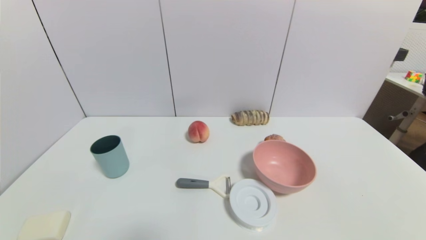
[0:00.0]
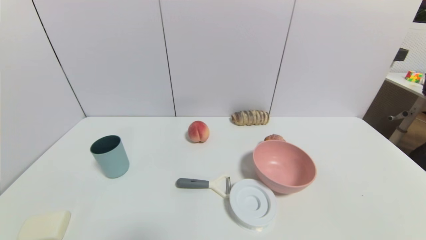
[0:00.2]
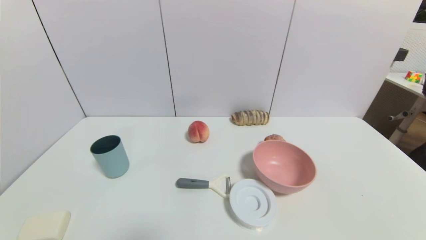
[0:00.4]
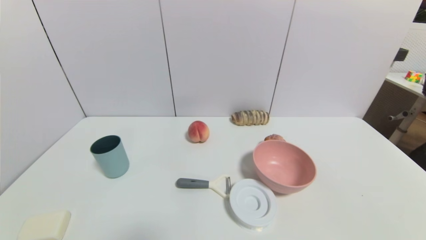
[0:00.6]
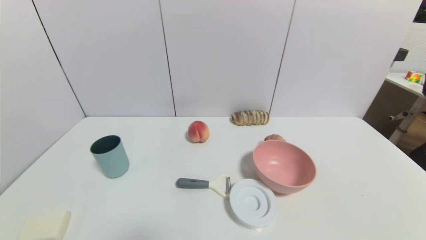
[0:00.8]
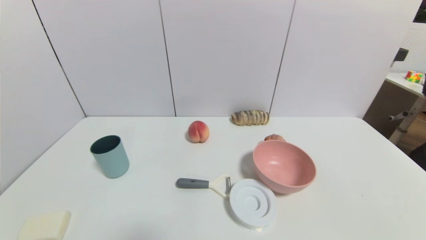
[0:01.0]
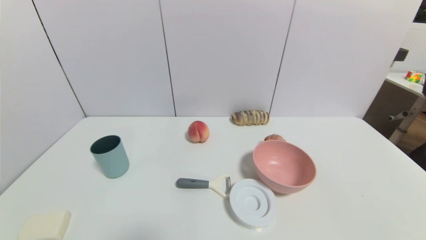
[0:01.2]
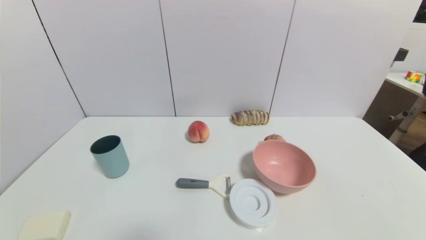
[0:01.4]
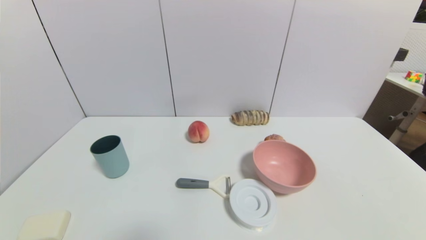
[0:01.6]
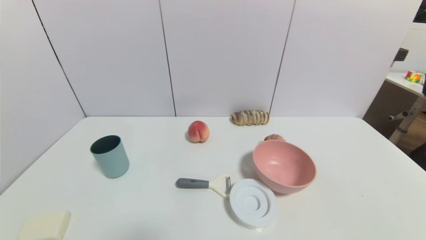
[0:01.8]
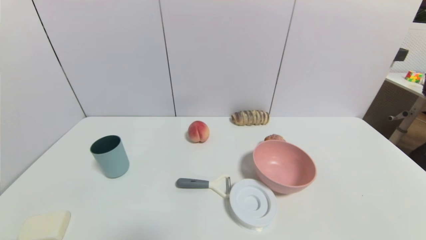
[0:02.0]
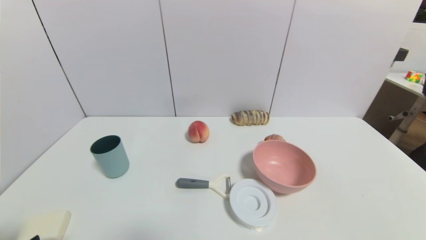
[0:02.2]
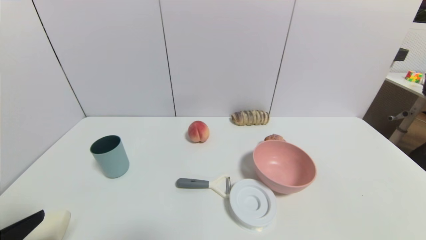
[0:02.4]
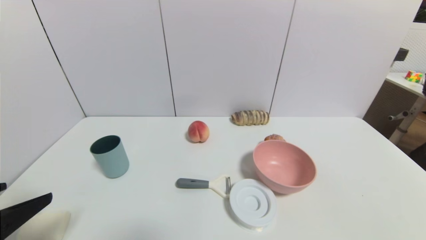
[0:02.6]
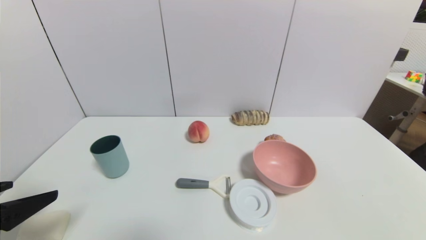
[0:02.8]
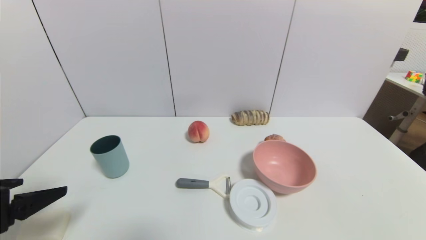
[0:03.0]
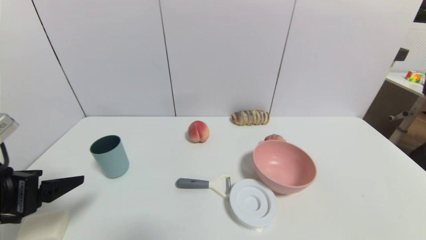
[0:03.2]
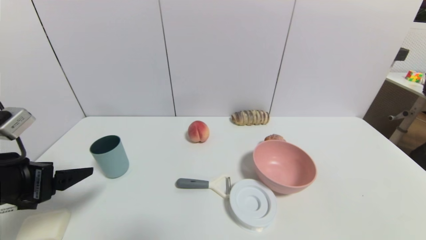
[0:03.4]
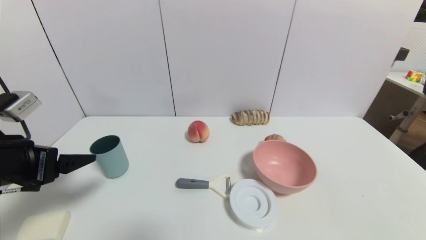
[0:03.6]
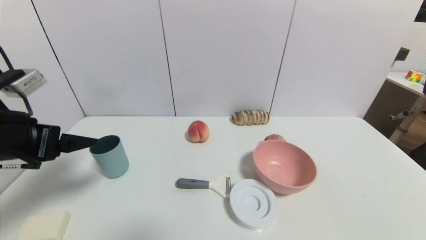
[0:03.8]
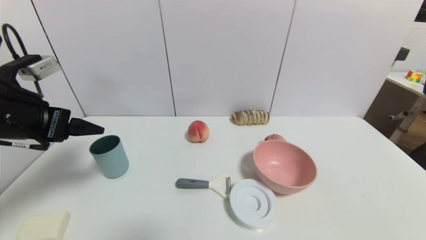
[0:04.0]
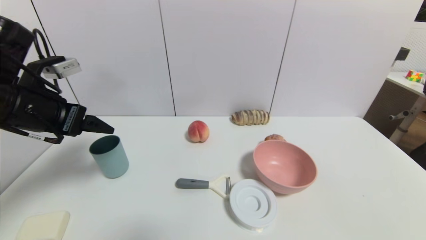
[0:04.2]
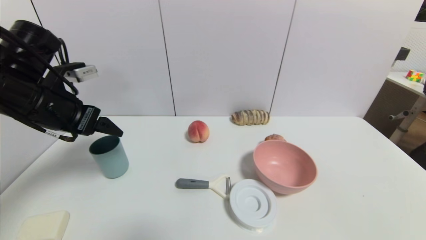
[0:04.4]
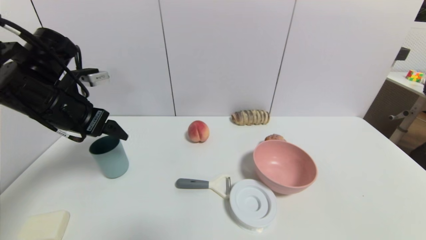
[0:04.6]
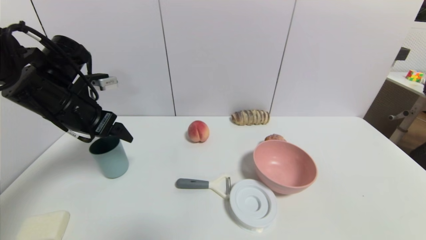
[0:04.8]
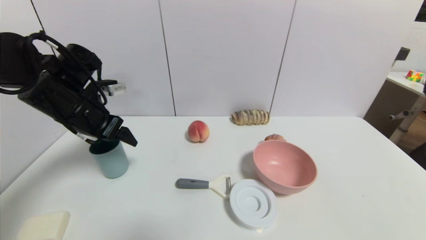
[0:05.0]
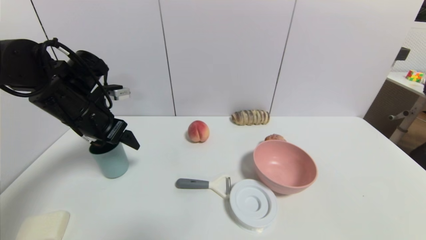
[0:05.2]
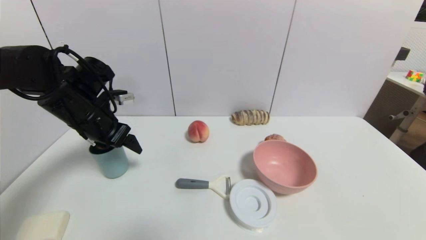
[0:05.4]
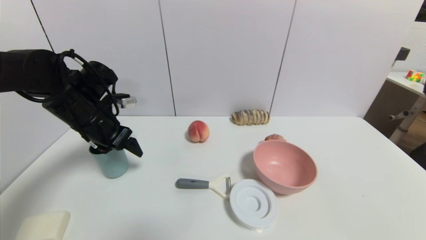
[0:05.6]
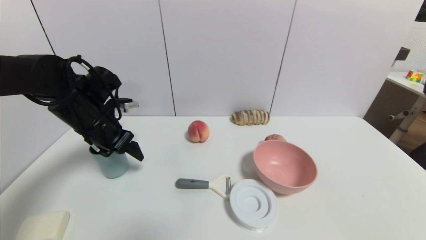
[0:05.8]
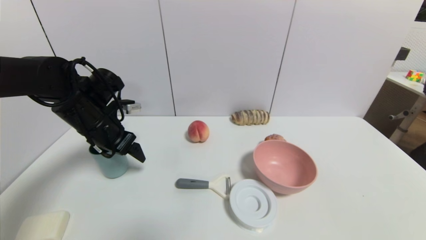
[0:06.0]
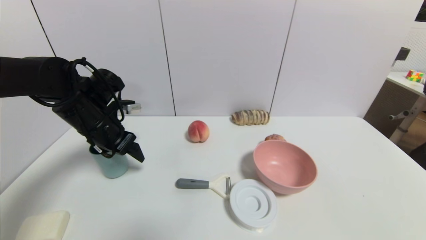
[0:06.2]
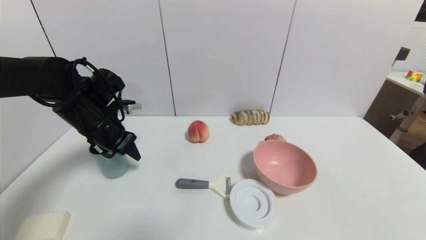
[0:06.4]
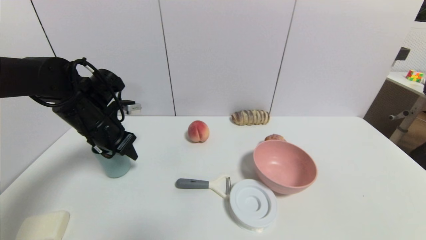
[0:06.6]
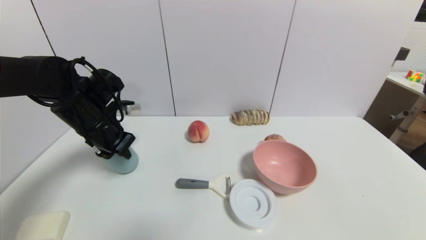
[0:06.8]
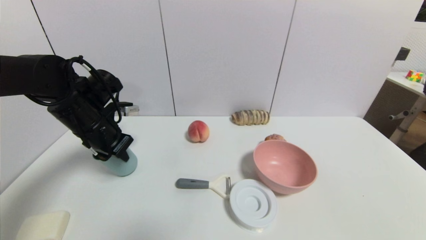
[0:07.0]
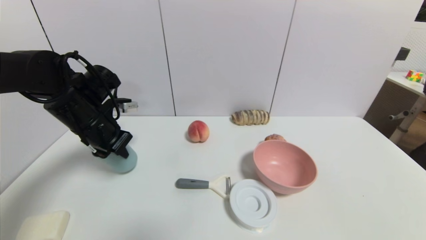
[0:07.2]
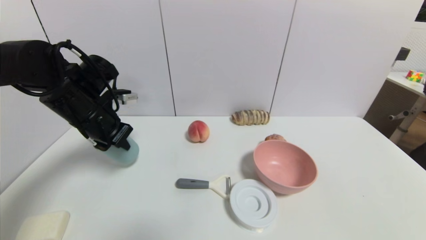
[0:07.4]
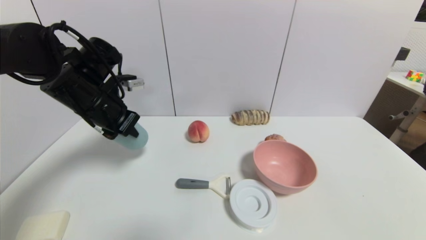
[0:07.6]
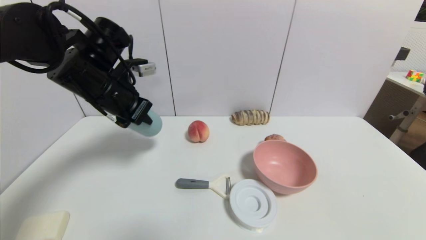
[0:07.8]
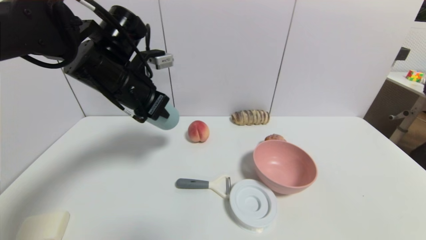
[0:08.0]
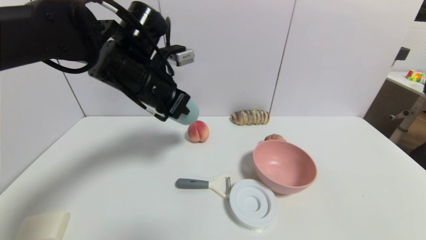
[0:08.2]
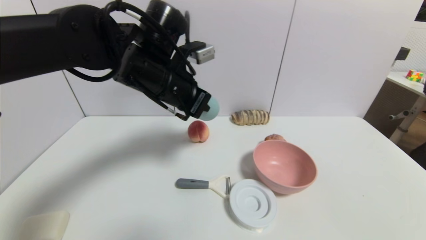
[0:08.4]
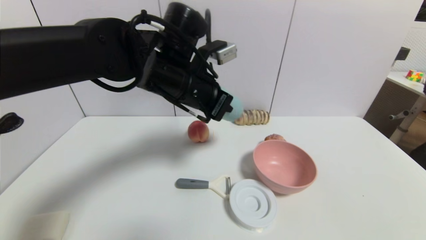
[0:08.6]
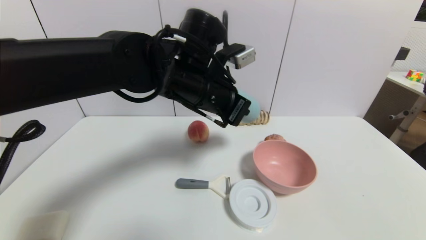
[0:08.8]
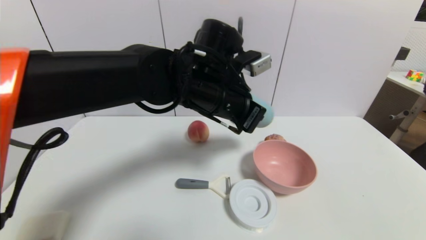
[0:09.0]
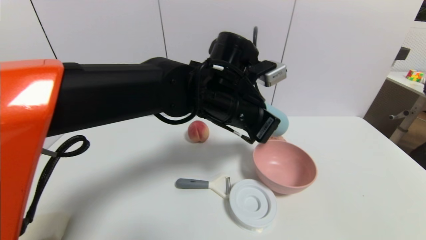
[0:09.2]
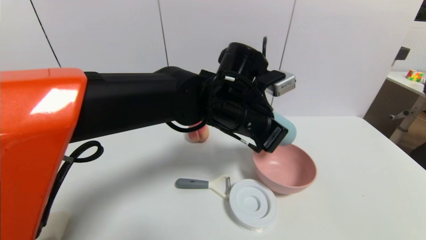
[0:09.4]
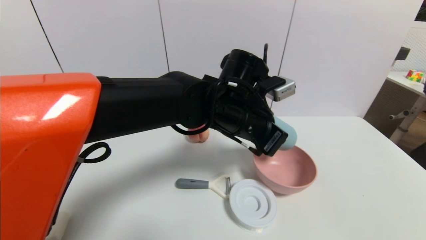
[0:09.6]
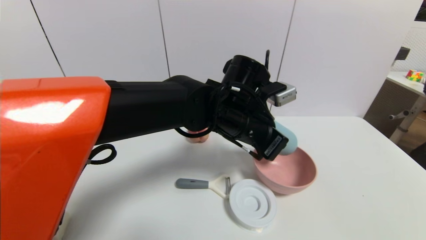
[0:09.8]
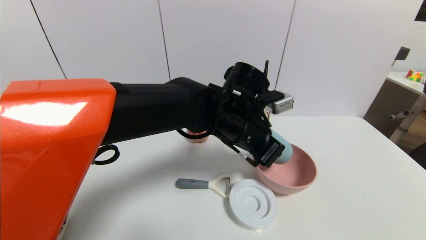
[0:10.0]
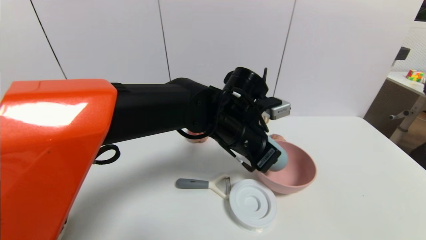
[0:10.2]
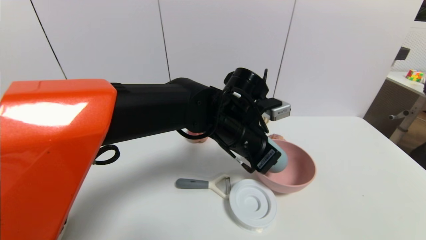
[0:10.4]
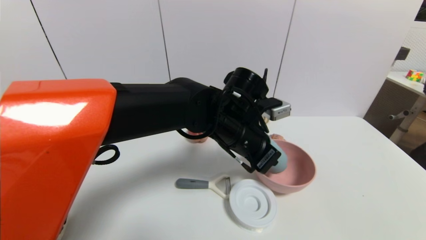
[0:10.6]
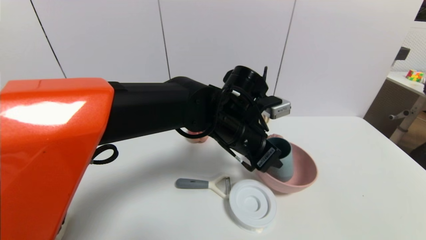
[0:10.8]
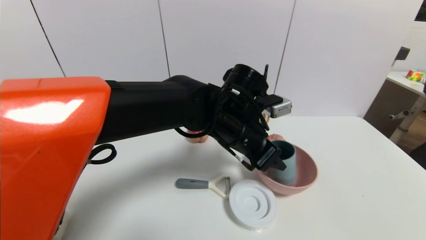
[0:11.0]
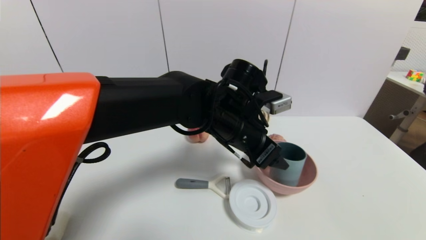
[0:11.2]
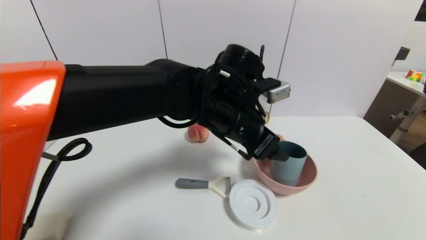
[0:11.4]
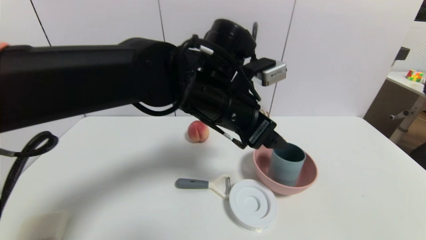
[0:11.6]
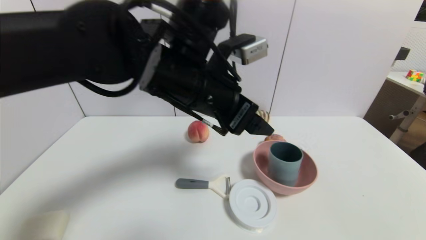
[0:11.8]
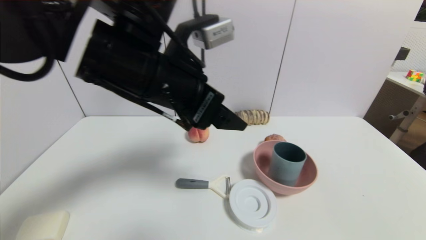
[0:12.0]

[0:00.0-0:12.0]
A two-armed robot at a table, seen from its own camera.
Task of the whole recording: use a gripper to pick the target object and place on the pink bowl.
Step, 0:00.0 to 0:06.8: Grasp the blue cup with the left gripper.
Step, 0:07.0 to 0:11.0: Place the blue cup on the pink bowl with the left gripper.
0:00.0 to 0:01.6: Neither gripper changes place.
0:01.6 to 0:03.0: The left gripper shifts roughly 20 cm upward and forward.
0:03.0 to 0:04.4: The left gripper is displaced forward by approximately 15 cm.
0:04.4 to 0:06.0: The left gripper goes some 10 cm downward and forward.
0:06.0 to 0:07.6: The left gripper heads upward, covering roughly 5 cm, and closes up.
0:07.6 to 0:09.0: The left gripper travels to the right by roughly 20 cm.
0:09.0 to 0:10.4: The left gripper moves downward, about 5 cm.
0:10.4 to 0:12.0: The left gripper heads to the left, upward and backward, covering approximately 20 cm, and opens up.

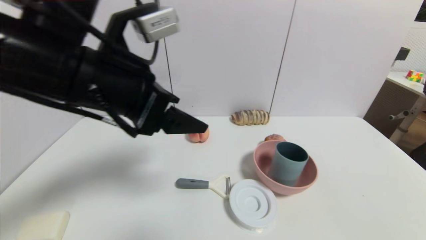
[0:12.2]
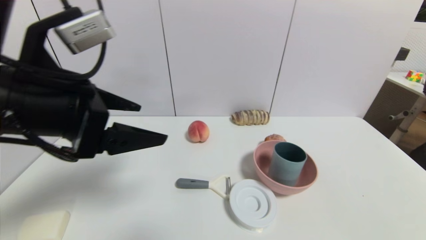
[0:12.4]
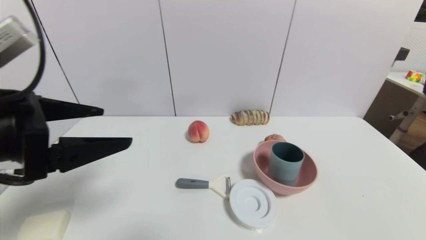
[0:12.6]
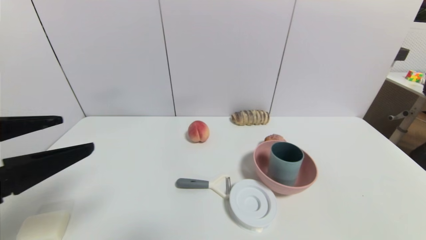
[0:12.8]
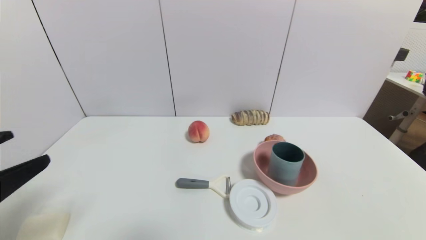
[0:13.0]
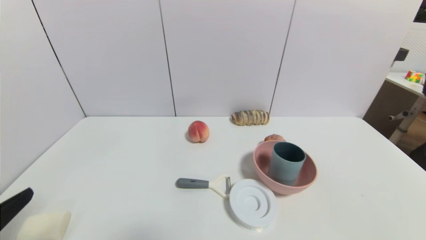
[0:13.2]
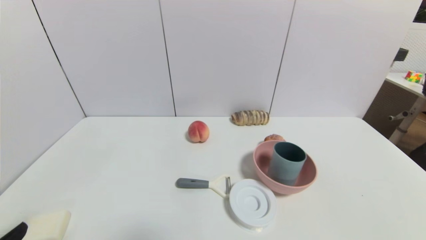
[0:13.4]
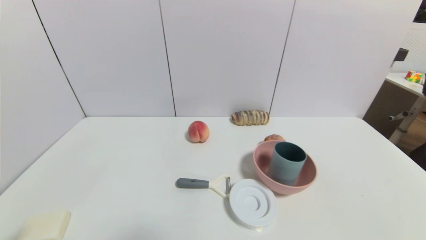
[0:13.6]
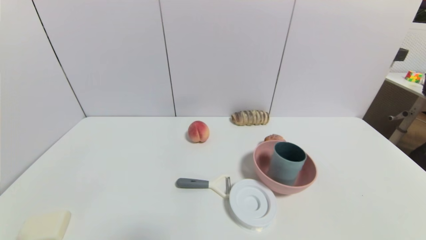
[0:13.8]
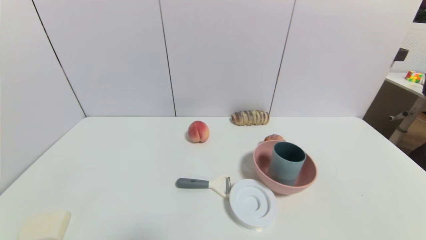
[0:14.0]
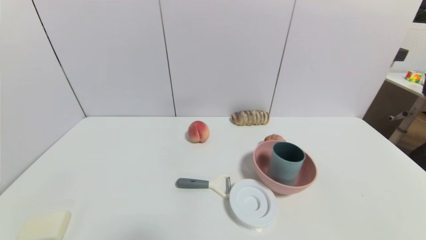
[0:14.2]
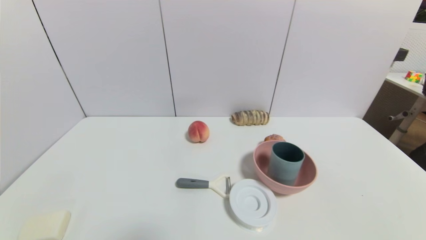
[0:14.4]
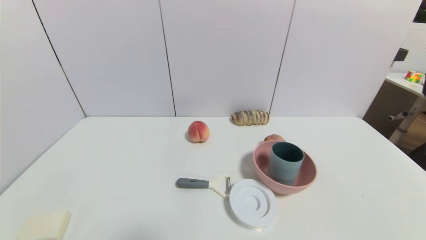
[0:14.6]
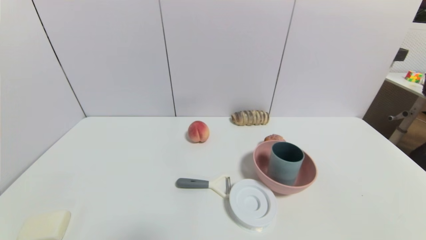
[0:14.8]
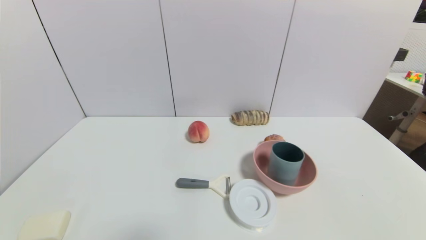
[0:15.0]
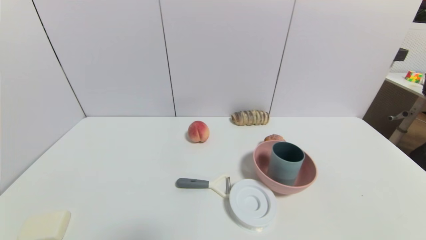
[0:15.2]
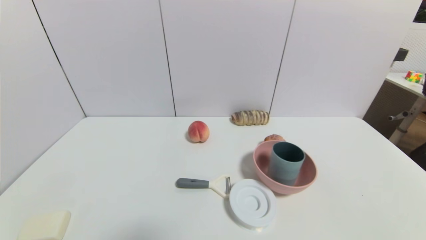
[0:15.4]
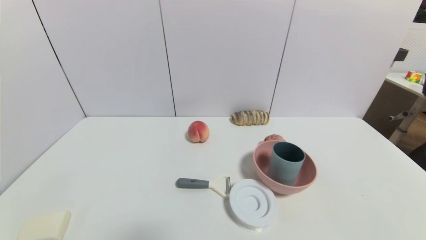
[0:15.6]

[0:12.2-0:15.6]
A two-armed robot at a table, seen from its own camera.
Task of the whole recording: use a gripper to pick the target object and place on the pink bowl.
0:12.2 to 0:13.8: The left gripper is displaced downward, backward and to the left by approximately 35 cm.

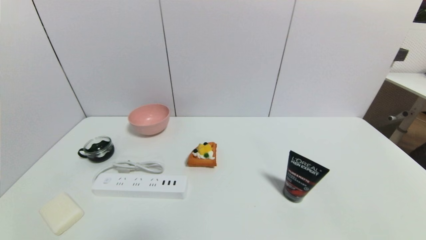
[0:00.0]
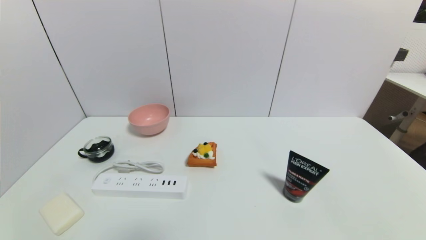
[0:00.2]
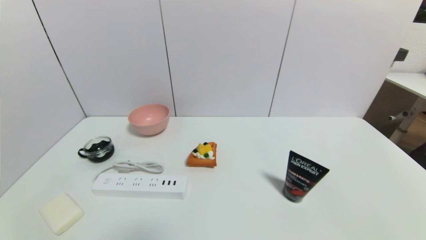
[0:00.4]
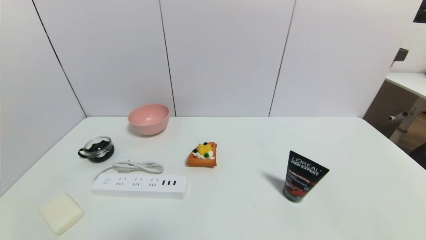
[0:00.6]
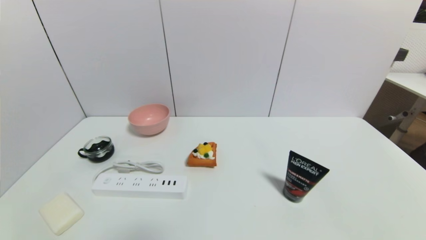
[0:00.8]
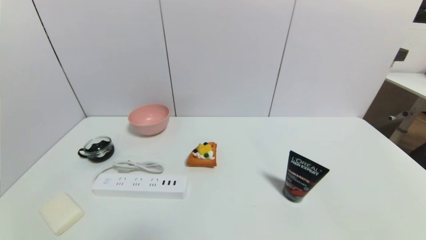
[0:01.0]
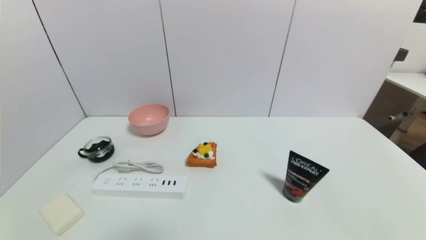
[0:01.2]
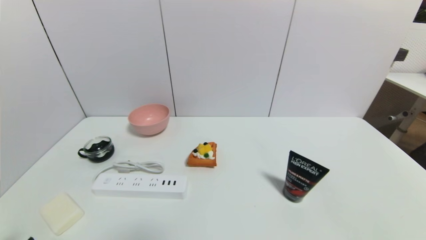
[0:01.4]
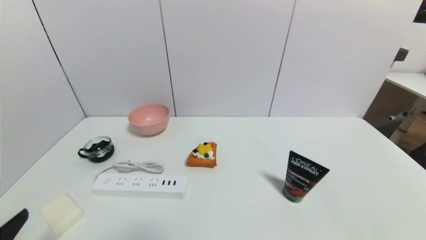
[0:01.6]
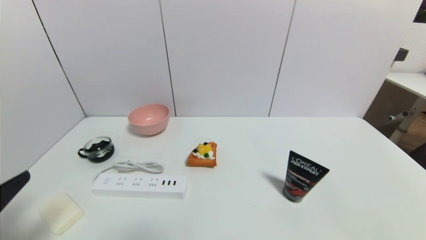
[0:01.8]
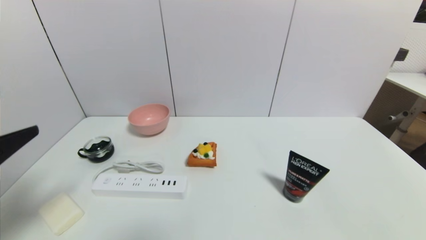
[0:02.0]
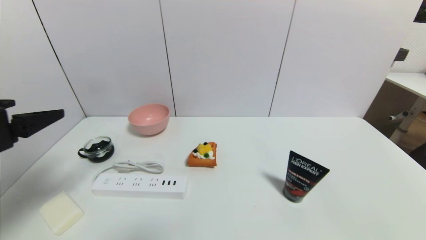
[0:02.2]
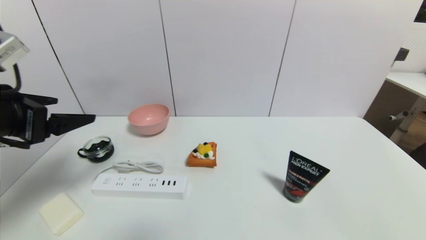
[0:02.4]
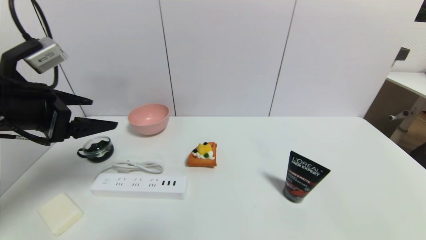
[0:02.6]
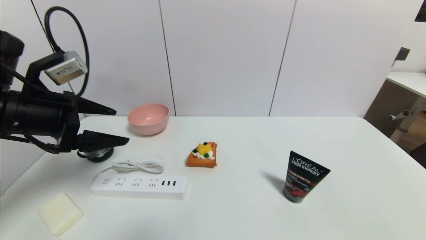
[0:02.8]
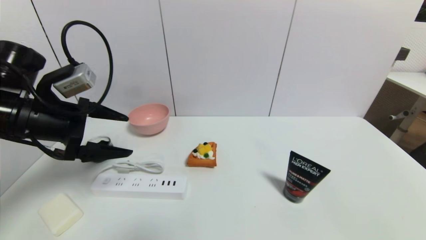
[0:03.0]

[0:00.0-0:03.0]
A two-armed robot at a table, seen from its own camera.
Task of the whole recording: use a gripper to pick the target object and place on the pink bowl.
0:01.6 to 0:03.0: The left gripper goes approximately 20 cm forward.